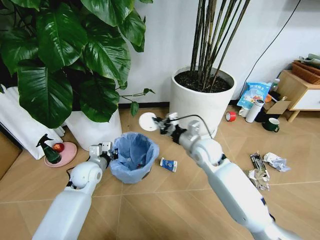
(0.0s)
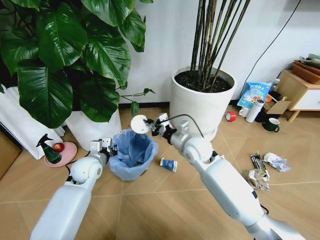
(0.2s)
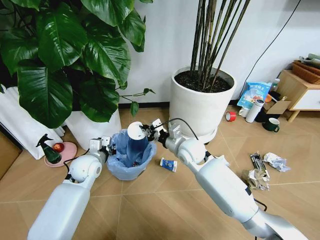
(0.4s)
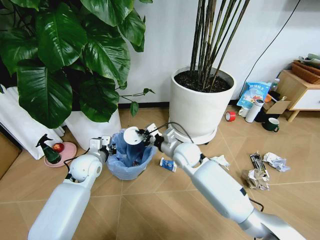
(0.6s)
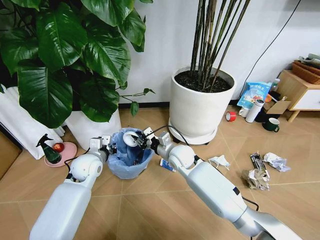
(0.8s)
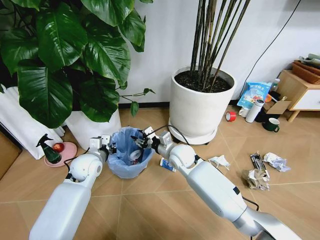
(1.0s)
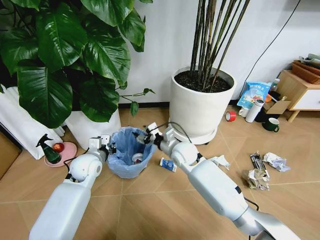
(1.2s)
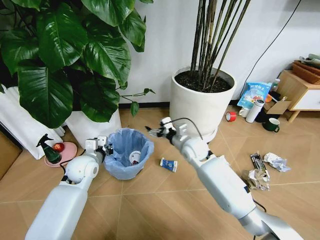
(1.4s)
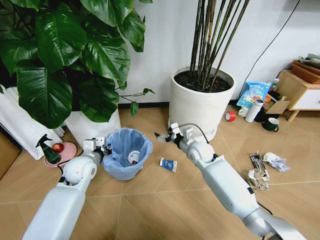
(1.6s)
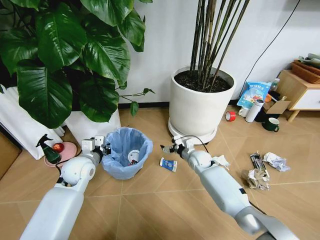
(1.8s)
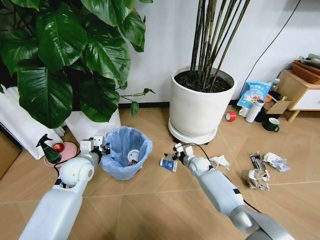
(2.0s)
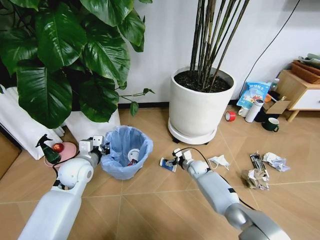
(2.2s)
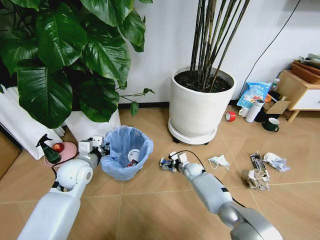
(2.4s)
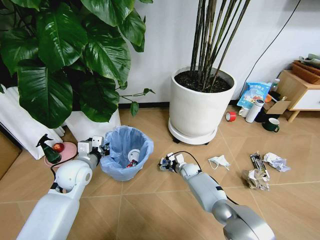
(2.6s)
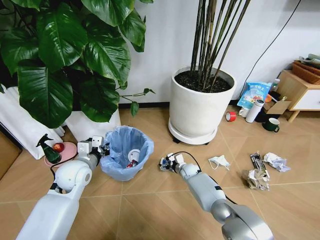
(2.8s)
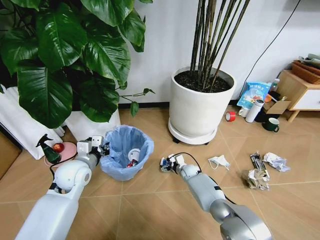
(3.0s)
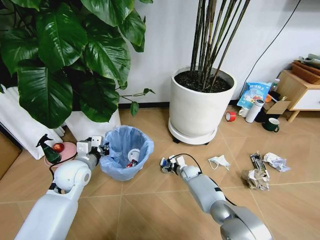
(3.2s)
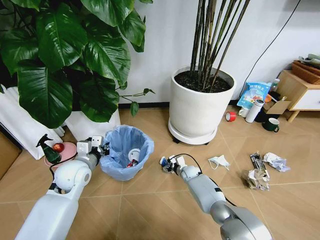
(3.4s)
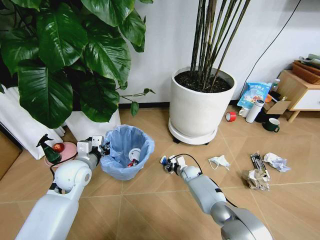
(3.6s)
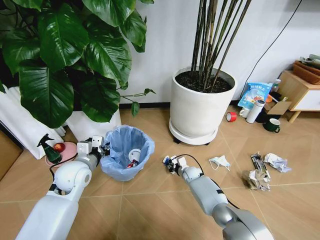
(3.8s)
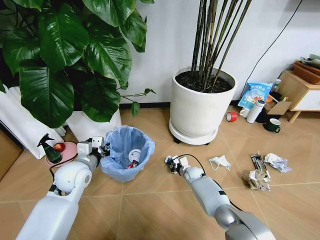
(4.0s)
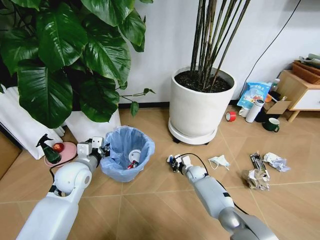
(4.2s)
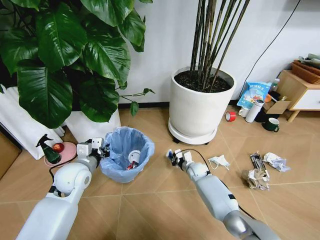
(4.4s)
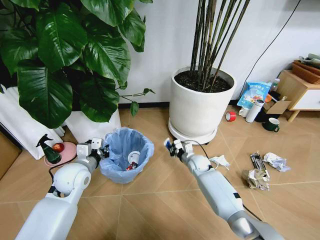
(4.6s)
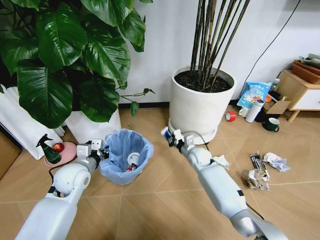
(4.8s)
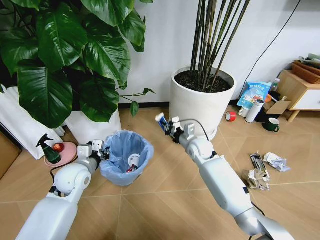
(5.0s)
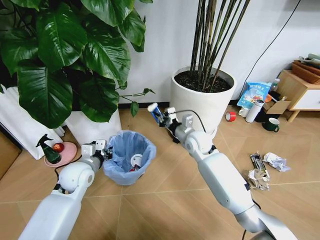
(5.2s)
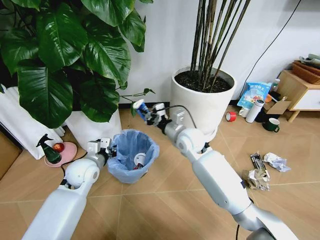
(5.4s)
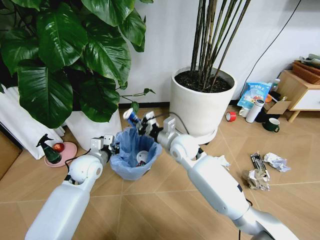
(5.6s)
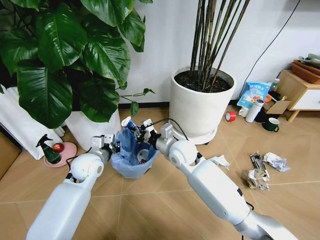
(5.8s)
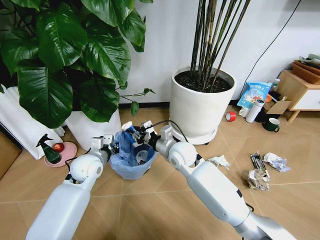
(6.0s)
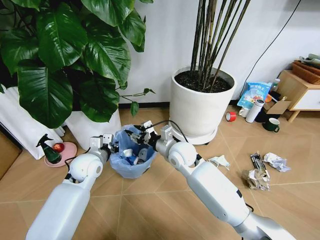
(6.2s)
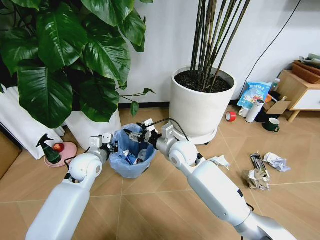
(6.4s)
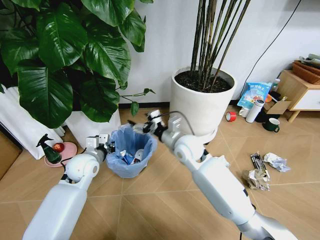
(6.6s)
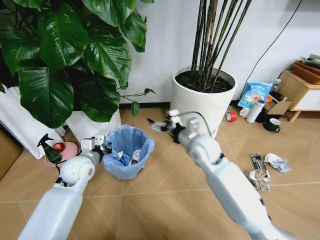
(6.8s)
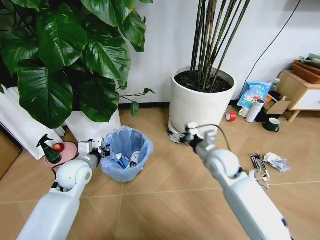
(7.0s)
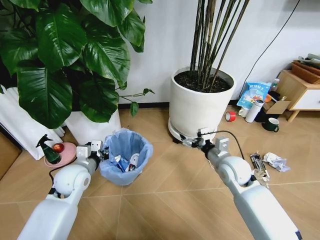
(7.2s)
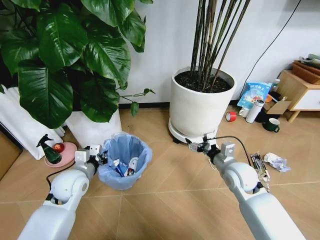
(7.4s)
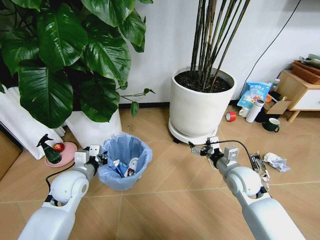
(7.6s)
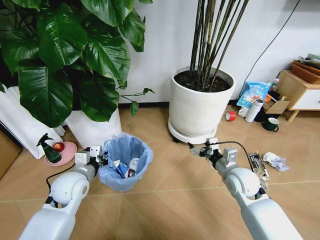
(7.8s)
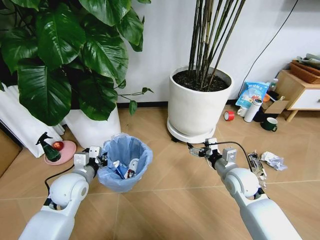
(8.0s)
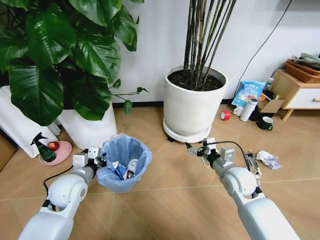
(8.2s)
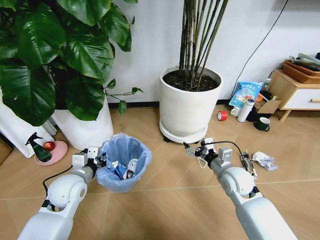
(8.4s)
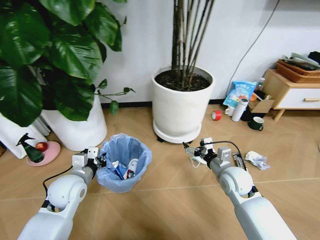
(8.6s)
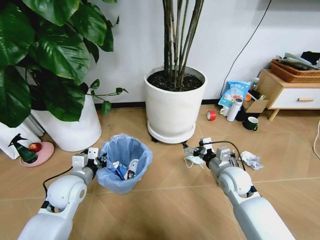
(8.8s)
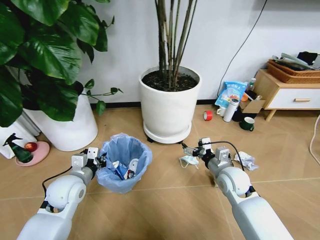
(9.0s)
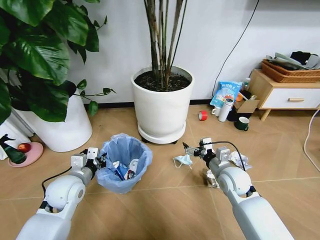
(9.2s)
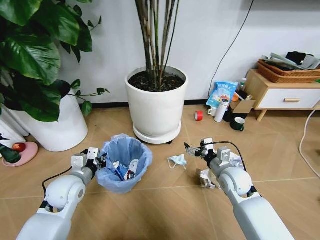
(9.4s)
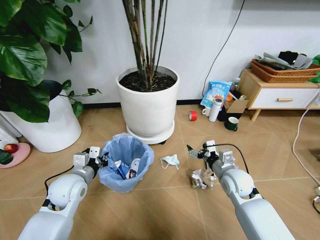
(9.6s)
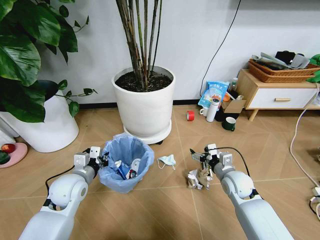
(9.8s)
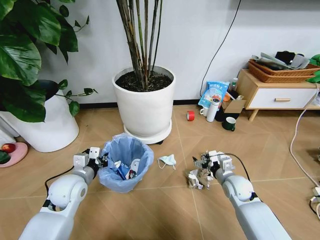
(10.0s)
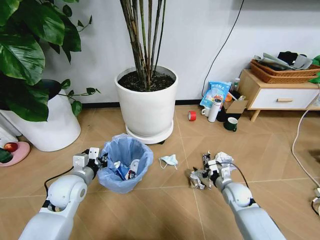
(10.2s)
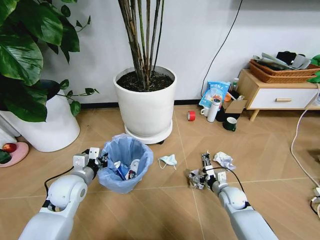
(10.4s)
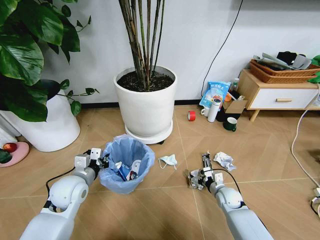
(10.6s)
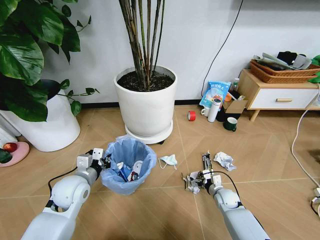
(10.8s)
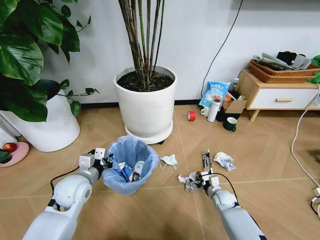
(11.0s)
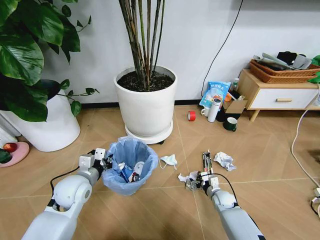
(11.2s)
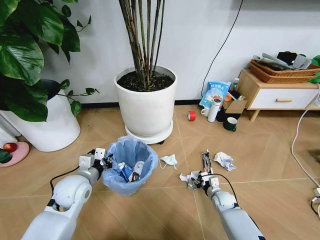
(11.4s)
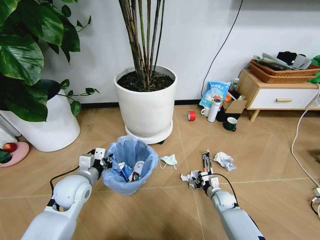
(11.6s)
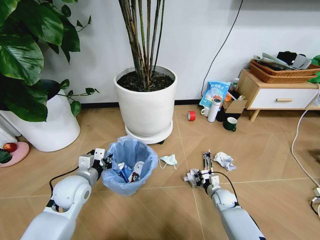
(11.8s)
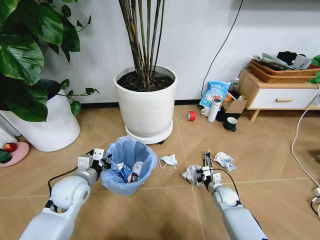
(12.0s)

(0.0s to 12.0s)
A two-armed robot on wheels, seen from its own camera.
Task of the whole recording: Pick up the trash bin and place the garbage on the floor into it.
0.0s - 1.6s: The right gripper goes about 10 cm downward and forward, reaches about 5 cm to the left, then returns, and opens its fingers.
1.6s - 3.0s: The right gripper heads downward, covering some 20 cm.
3.0s - 4.4s: The right gripper moves approximately 5 cm, and closes its fingers.
4.4s - 6.0s: The right gripper heads upward and to the left, covering about 25 cm. Meanwhile the left gripper shifts by some 5 cm.
6.0s - 7.6s: The right gripper moves to the right and backward, some 20 cm, and opens its fingers. Meanwhile the left gripper shifts some 5 cm backward.
9.0s - 10.4s: The right gripper goes some 15 cm downward.
10.4s - 12.0s: The right gripper closes up.

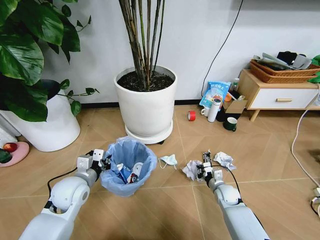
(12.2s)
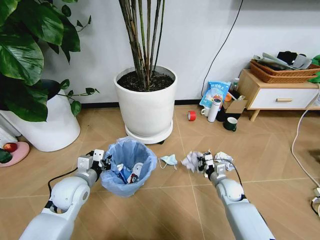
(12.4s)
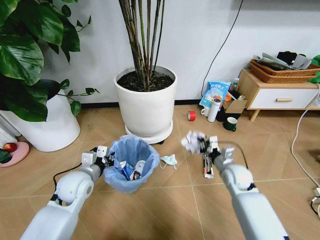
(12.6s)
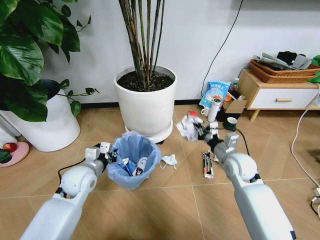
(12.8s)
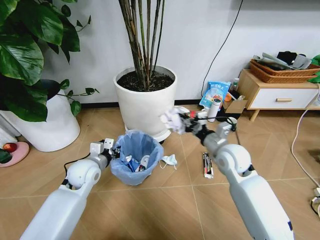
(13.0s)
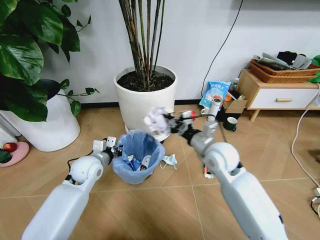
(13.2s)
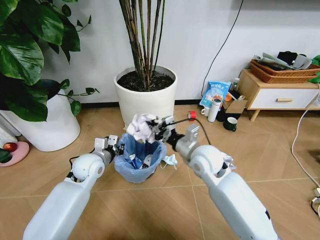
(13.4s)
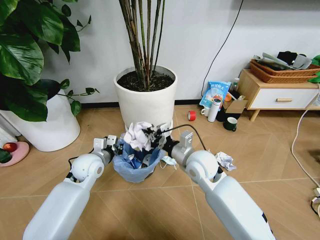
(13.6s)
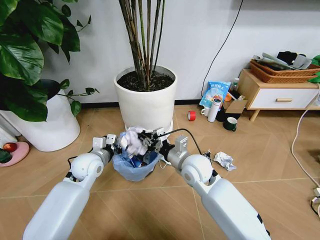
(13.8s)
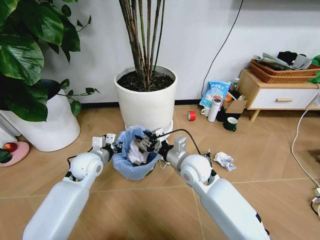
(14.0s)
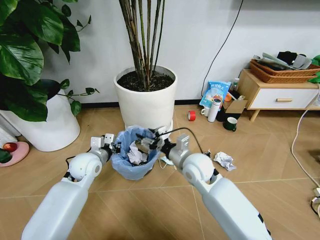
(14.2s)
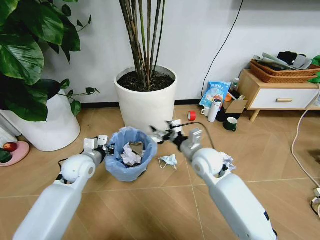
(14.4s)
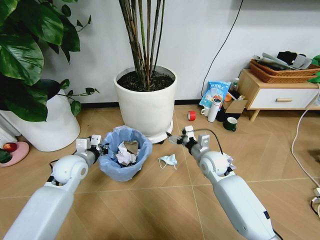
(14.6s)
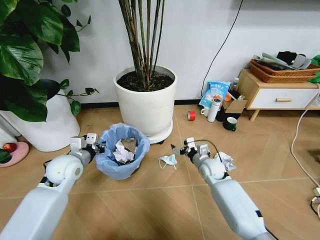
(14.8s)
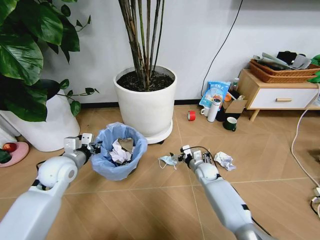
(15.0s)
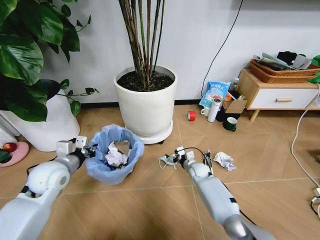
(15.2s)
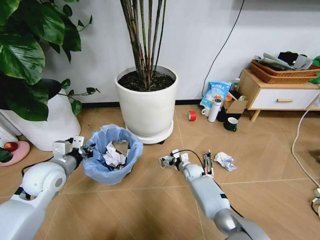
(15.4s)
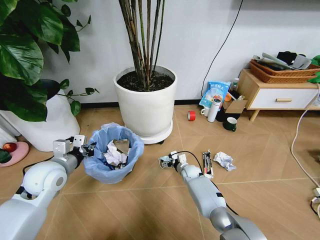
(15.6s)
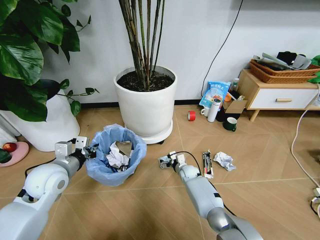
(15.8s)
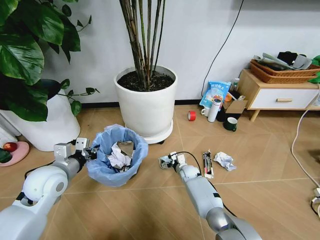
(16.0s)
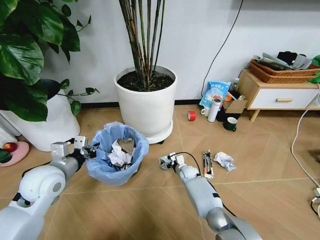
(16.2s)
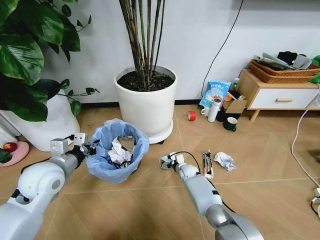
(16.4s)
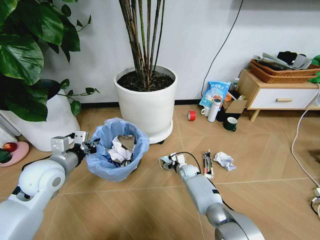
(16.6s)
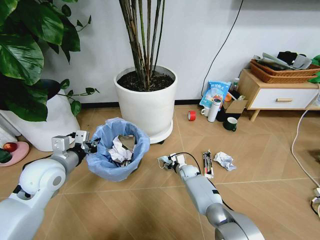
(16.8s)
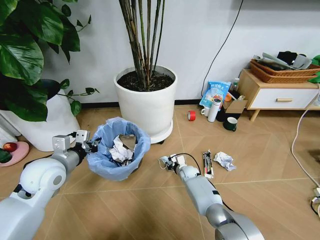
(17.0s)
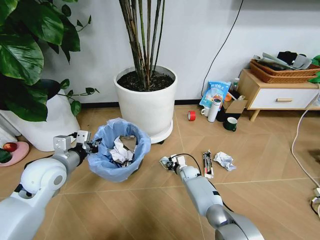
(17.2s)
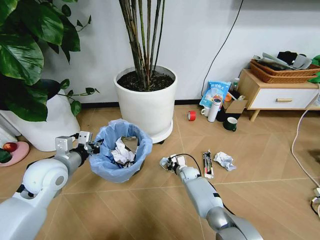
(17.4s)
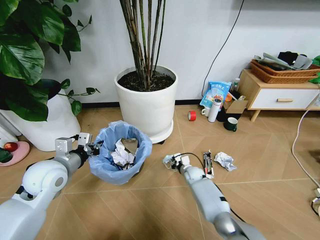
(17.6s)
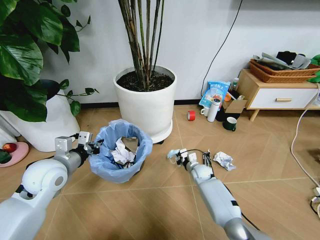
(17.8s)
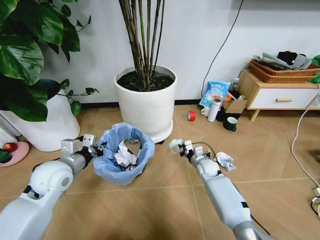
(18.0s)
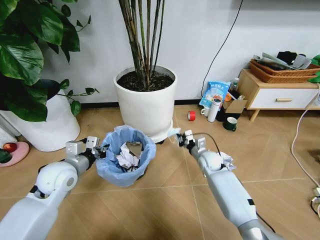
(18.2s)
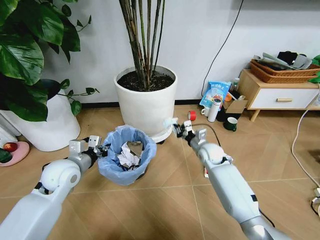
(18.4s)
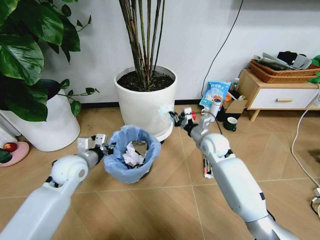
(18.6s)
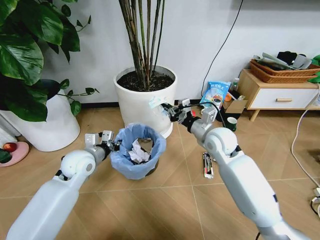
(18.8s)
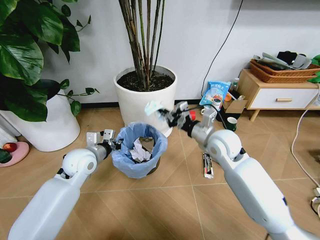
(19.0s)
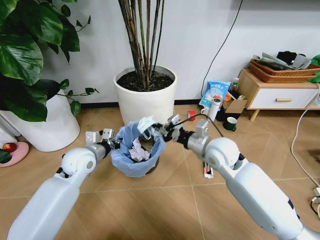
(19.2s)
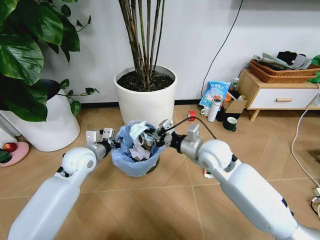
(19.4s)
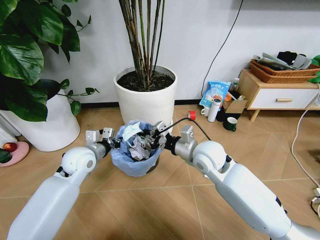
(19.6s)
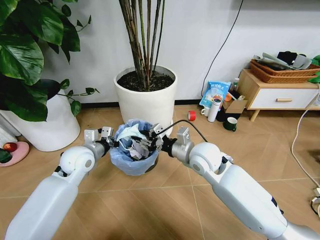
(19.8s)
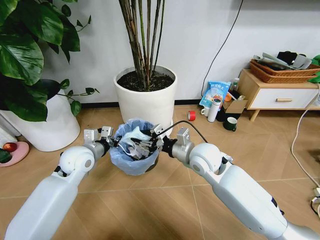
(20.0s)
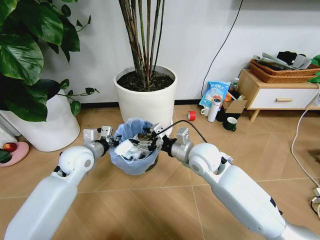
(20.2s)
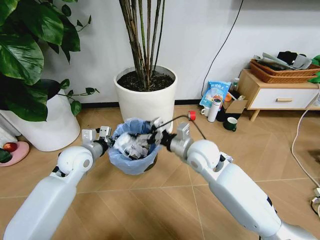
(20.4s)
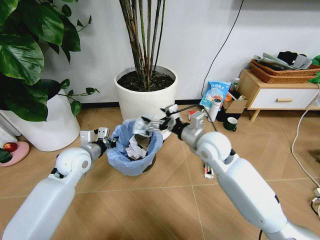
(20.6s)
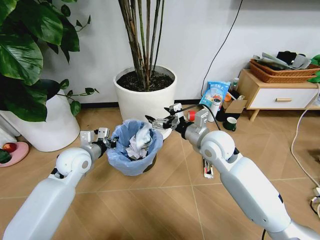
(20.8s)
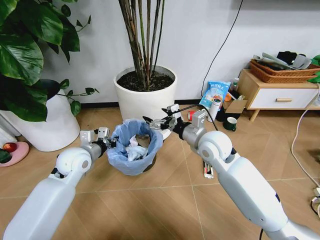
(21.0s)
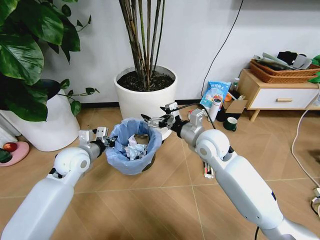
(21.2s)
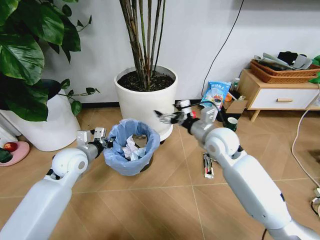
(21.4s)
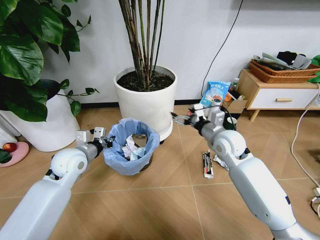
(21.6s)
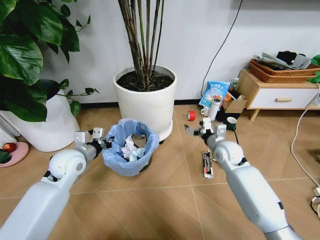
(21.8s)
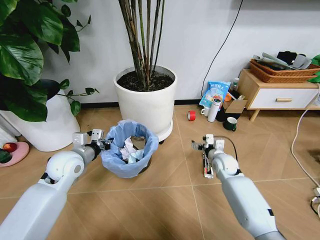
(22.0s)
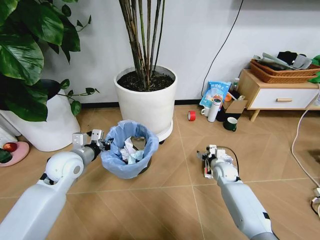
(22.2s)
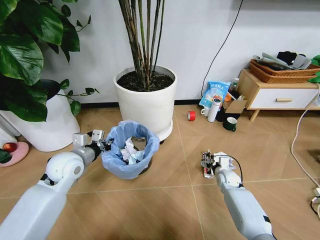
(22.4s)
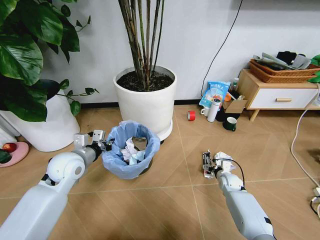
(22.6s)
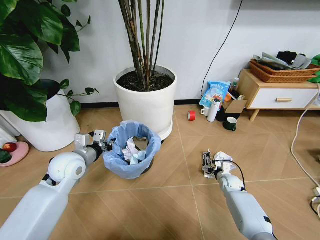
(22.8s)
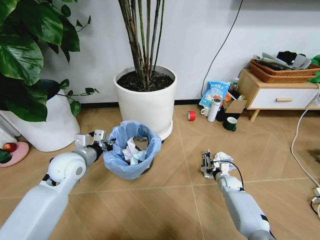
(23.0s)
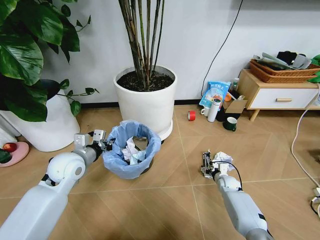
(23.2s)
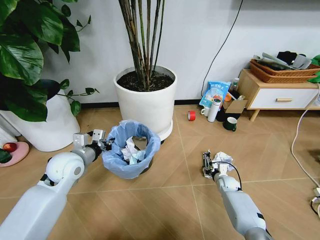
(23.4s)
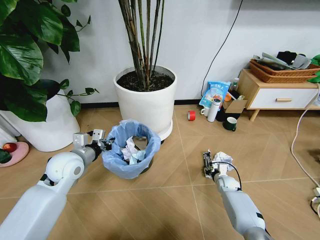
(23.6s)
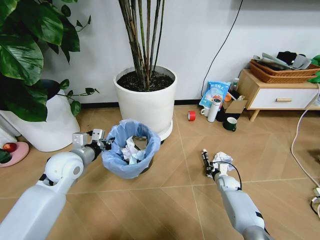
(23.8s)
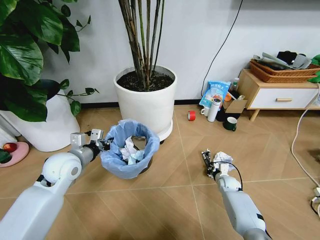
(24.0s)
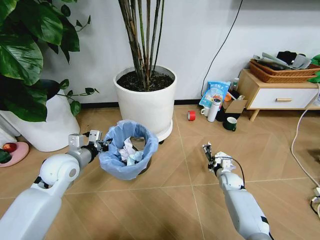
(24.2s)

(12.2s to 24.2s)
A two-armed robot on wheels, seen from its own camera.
Task of the whole recording: Pick up the trash bin and place the garbage on the floor into it.
12.2s - 13.8s: The left gripper goes approximately 10 cm forward; the right gripper heads upward and to the left, covering roughly 30 cm.
13.8s - 15.2s: The right gripper shifts about 25 cm downward and forward, and opens. The left gripper shifts some 10 cm to the left and backward.
15.2s - 16.6s: The right gripper moves some 5 cm.
16.6s - 18.2s: The right gripper shifts some 15 cm upward and to the right, and closes.
18.2s - 19.8s: The left gripper heads forward, covering roughly 5 cm; the right gripper heads upward, backward and to the left, covering approximately 20 cm, and opens up.
19.8s - 21.2s: The right gripper opens.
21.2s - 22.6s: The right gripper shifts approximately 35 cm downward and to the right.
22.6s - 24.2s: The right gripper closes its fingers.
